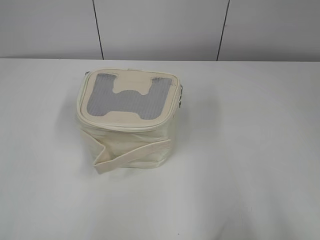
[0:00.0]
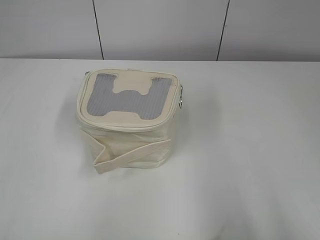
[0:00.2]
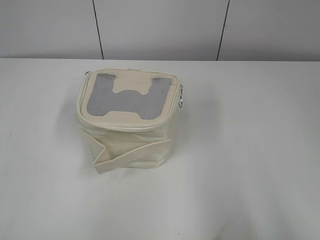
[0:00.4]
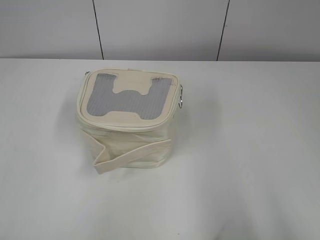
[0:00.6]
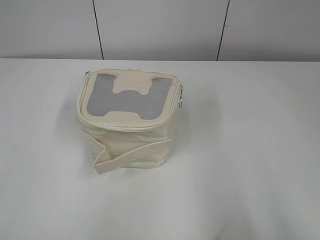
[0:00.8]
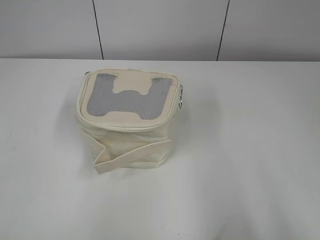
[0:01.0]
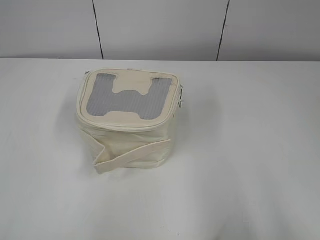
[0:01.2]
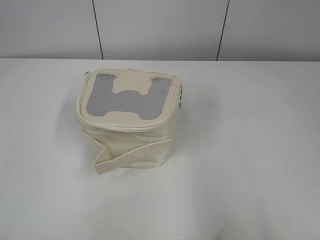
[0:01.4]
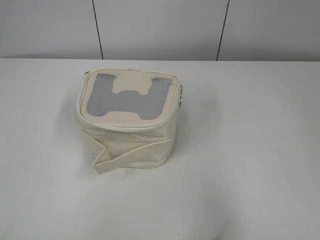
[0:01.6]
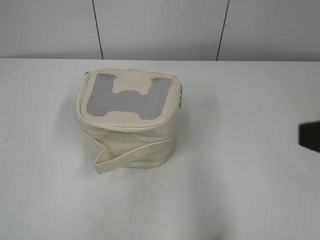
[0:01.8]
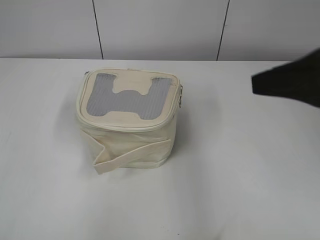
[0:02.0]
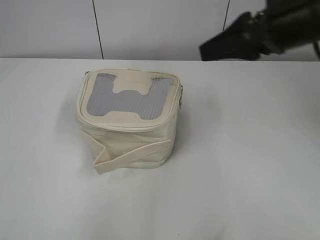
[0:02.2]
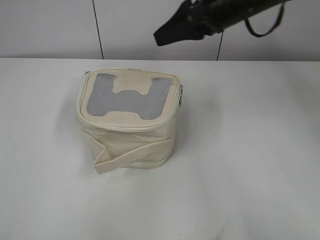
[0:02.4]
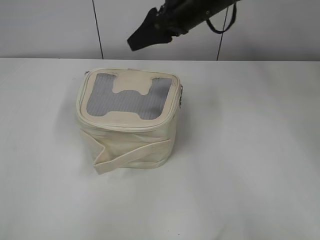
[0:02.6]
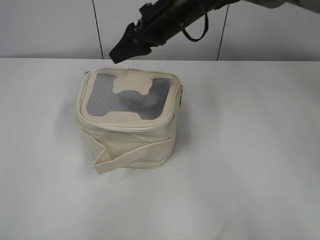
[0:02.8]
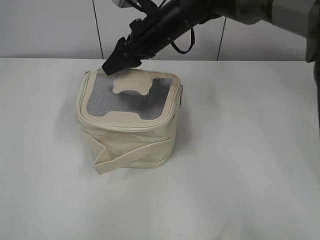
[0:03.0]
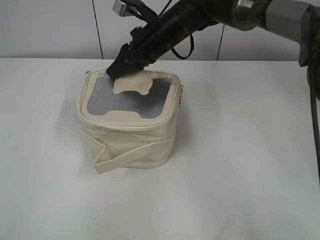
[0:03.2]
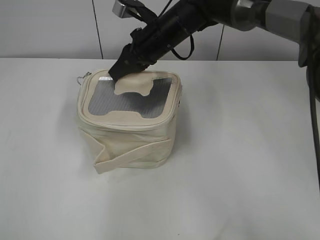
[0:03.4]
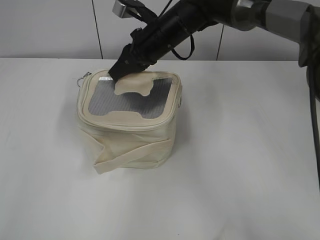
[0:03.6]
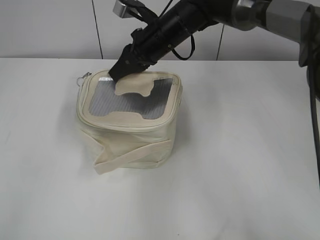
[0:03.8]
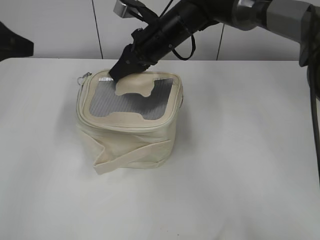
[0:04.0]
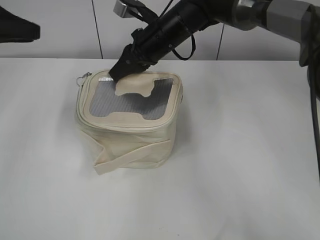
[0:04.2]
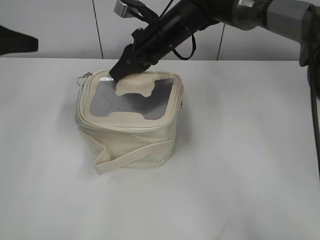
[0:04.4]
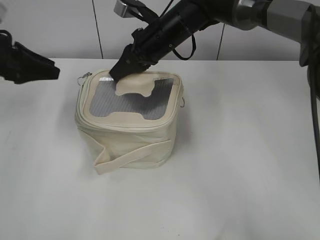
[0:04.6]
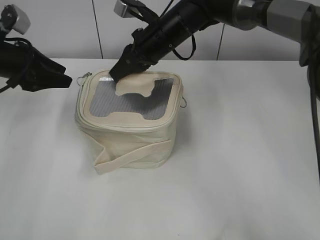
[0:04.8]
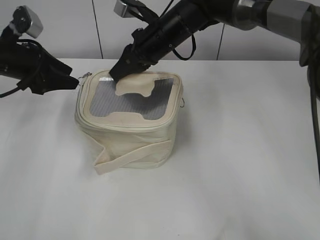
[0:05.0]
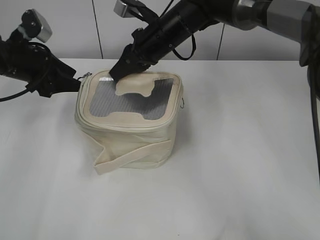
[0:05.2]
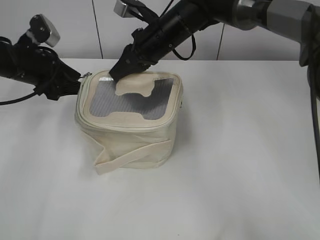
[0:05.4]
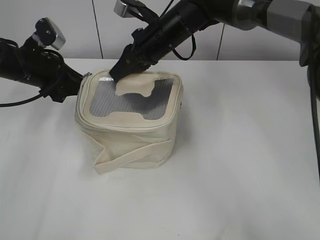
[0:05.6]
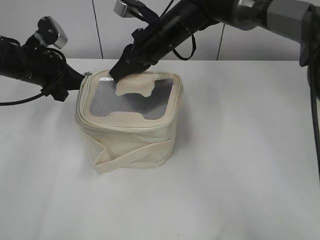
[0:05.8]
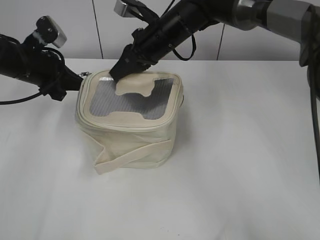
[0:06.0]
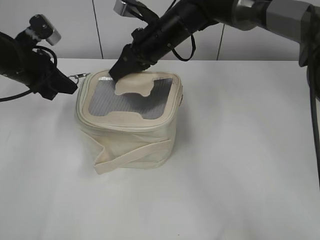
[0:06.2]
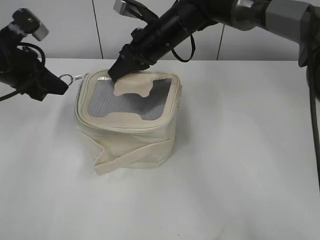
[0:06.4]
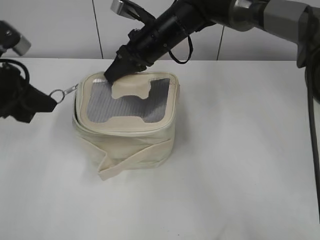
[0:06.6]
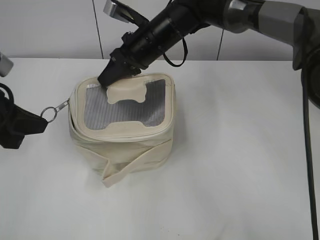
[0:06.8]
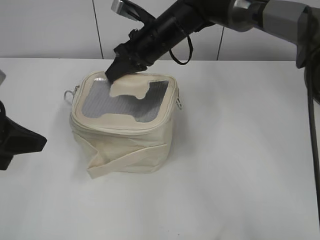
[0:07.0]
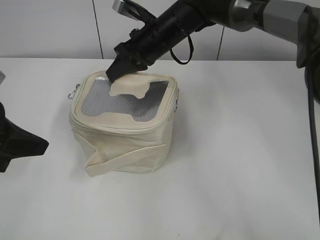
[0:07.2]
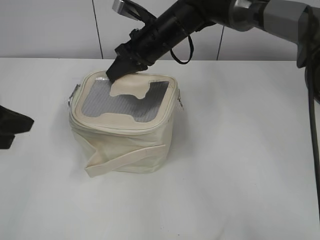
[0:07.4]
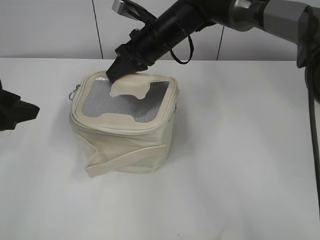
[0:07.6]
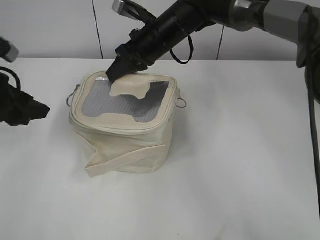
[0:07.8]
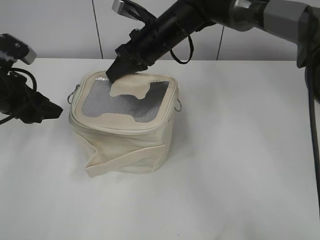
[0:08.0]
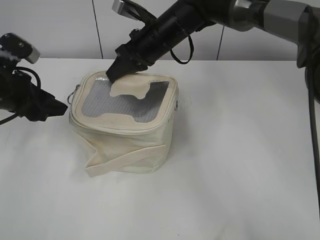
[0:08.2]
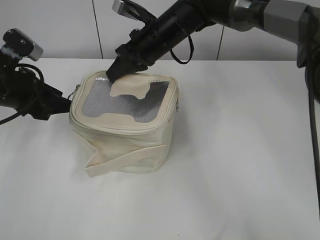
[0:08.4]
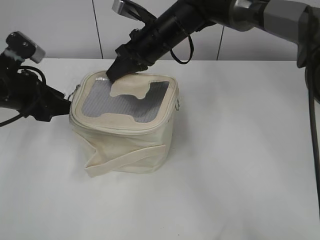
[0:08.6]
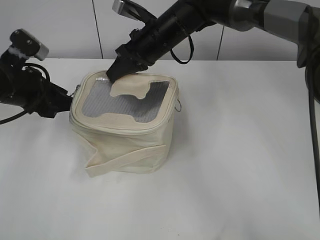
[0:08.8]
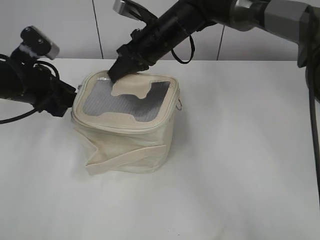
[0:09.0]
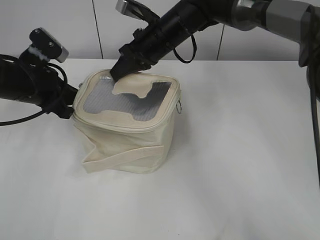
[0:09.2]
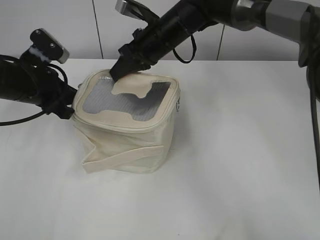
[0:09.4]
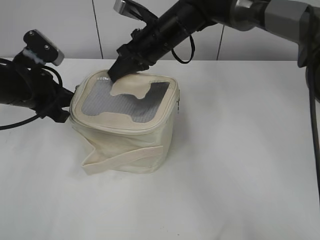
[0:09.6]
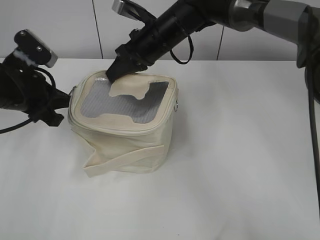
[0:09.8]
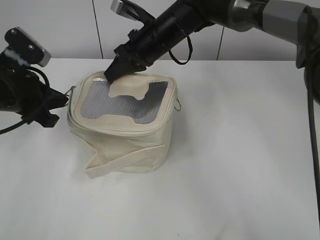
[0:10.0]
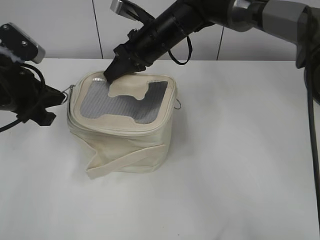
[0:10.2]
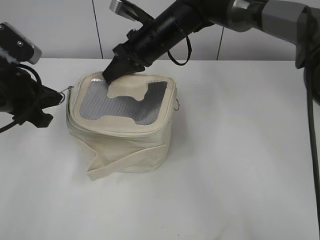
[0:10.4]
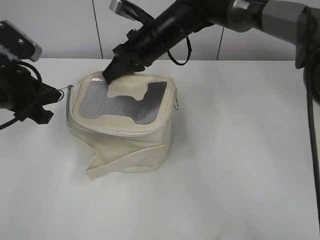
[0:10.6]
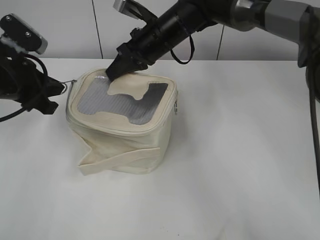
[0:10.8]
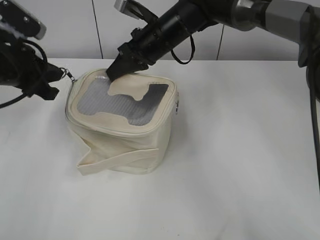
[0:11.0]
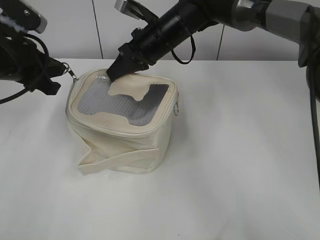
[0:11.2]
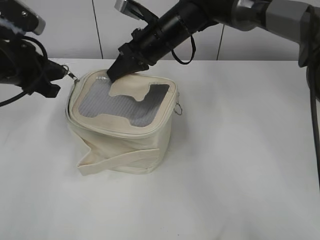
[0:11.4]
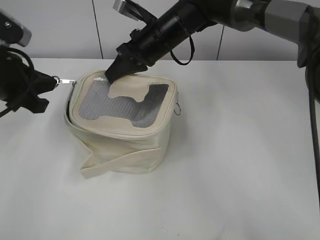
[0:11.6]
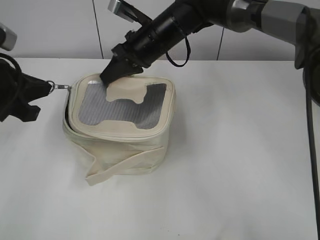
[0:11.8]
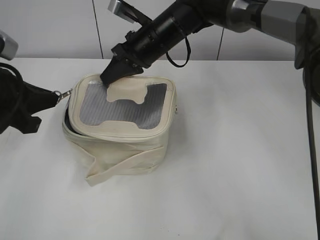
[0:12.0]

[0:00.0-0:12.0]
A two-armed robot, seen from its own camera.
0:01.6 to 0:03.0: The right gripper shifts approximately 50 cm forward and to the left.
0:03.0 to 0:04.4: The left gripper moves forward, some 35 cm, while the right gripper closes up.
0:04.4 to 0:06.0: The left gripper shifts about 10 cm to the right and downward, and closes its fingers.
0:06.0 to 0:07.6: The left gripper shifts approximately 15 cm backward, and opens up.
0:07.6 to 0:09.0: The left gripper heads forward, covering roughly 10 cm.
0:09.0 to 0:10.4: The left gripper heads backward, covering approximately 5 cm, and closes.
0:10.4 to 0:12.0: The grippers make only small movements.

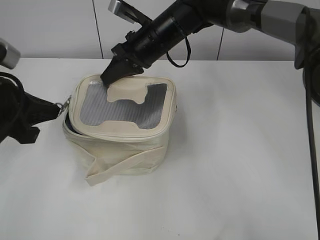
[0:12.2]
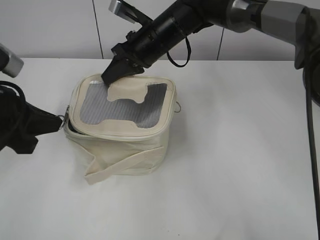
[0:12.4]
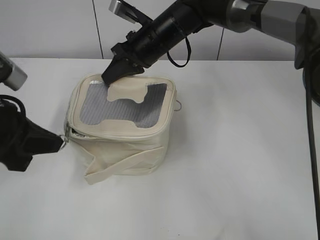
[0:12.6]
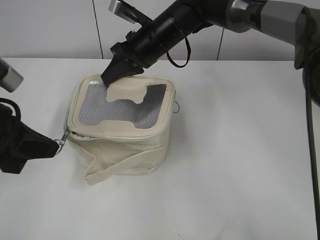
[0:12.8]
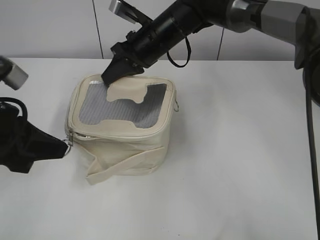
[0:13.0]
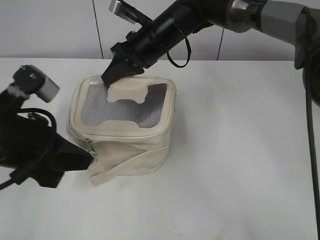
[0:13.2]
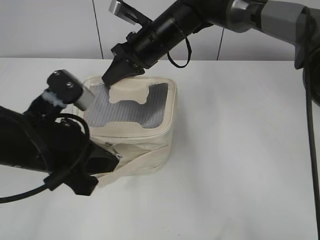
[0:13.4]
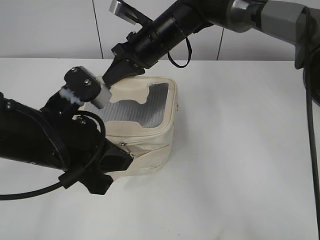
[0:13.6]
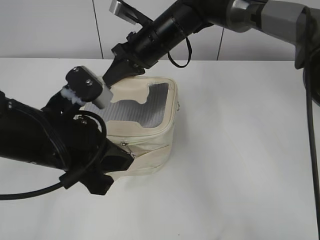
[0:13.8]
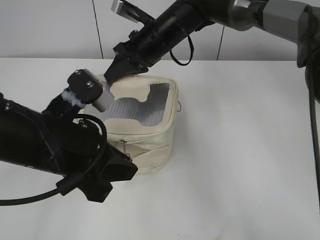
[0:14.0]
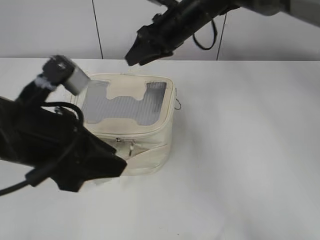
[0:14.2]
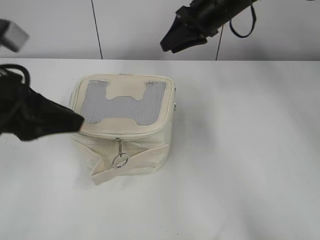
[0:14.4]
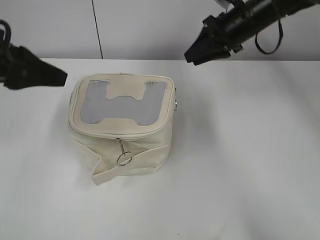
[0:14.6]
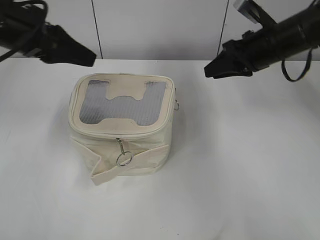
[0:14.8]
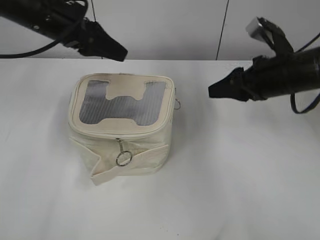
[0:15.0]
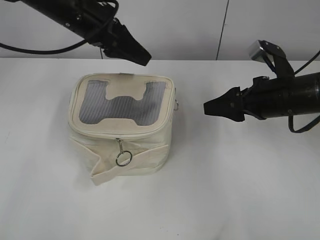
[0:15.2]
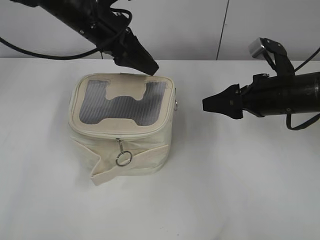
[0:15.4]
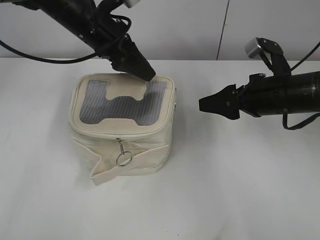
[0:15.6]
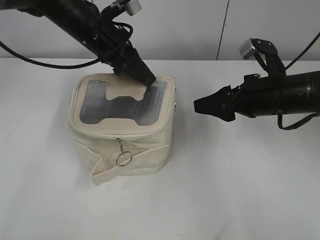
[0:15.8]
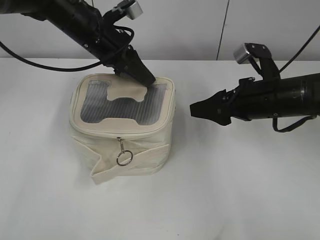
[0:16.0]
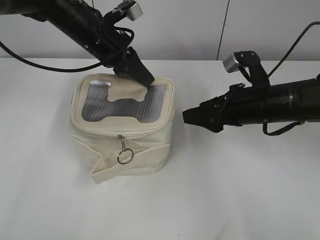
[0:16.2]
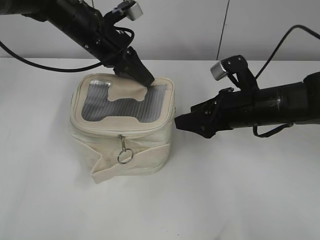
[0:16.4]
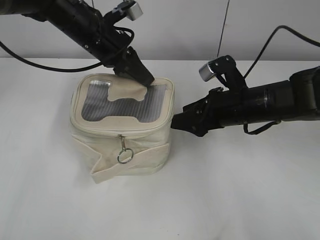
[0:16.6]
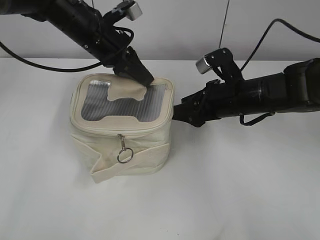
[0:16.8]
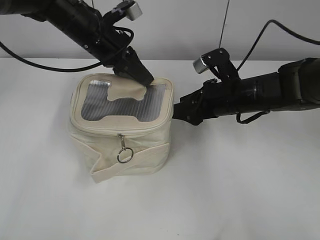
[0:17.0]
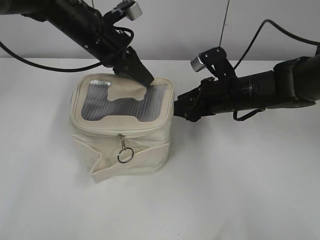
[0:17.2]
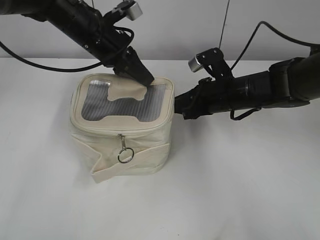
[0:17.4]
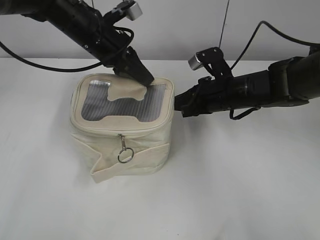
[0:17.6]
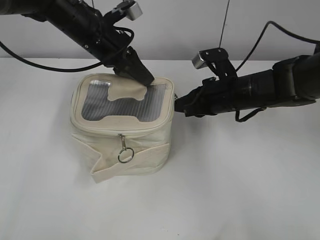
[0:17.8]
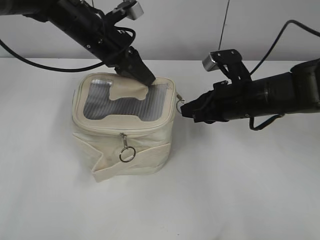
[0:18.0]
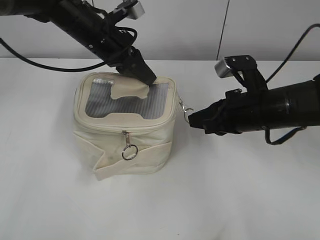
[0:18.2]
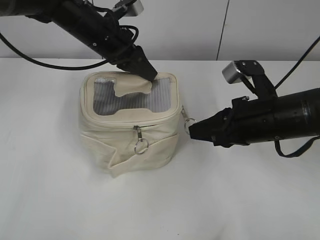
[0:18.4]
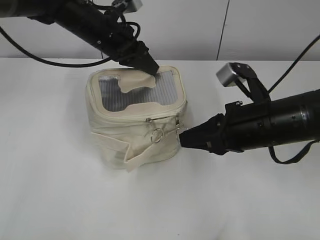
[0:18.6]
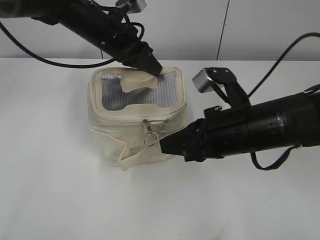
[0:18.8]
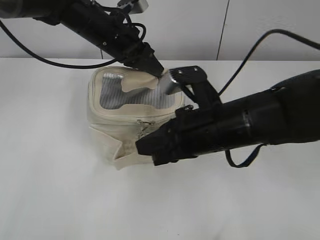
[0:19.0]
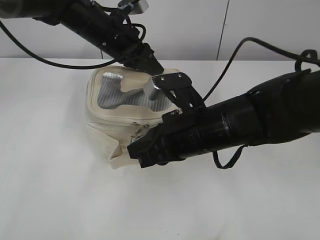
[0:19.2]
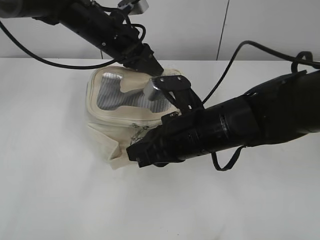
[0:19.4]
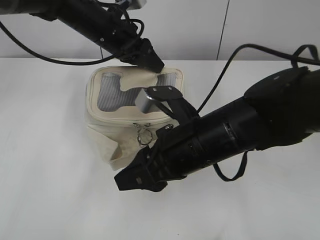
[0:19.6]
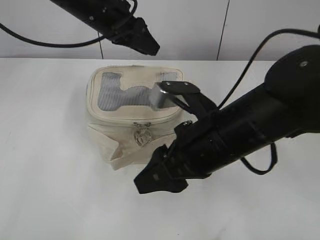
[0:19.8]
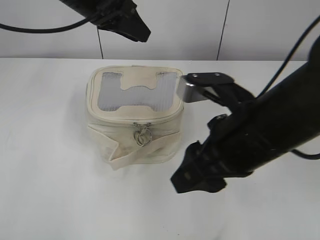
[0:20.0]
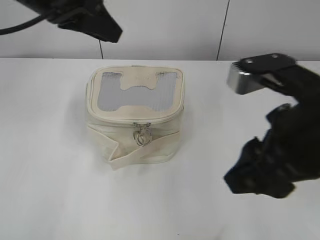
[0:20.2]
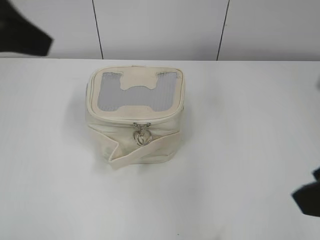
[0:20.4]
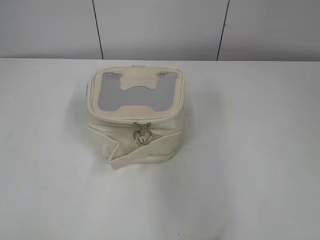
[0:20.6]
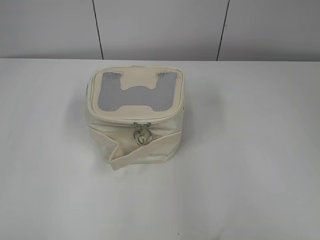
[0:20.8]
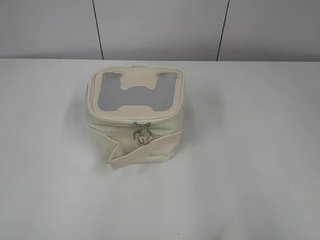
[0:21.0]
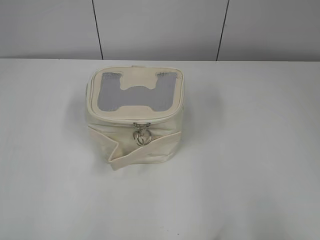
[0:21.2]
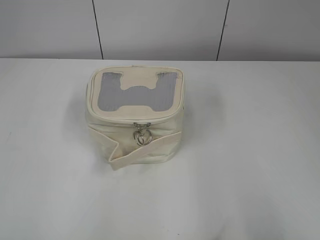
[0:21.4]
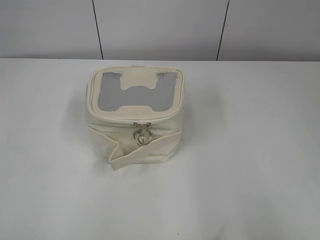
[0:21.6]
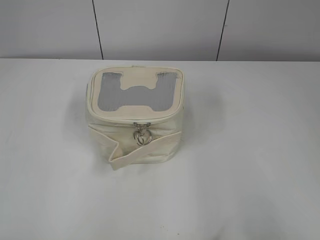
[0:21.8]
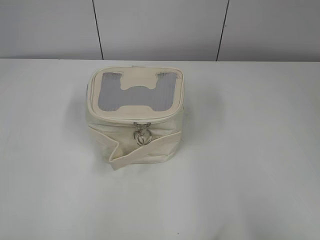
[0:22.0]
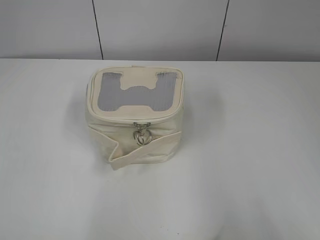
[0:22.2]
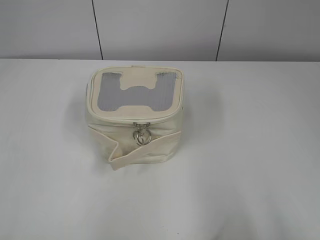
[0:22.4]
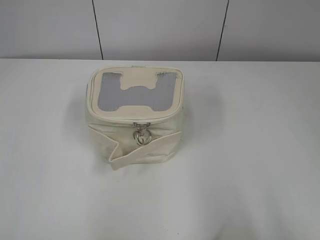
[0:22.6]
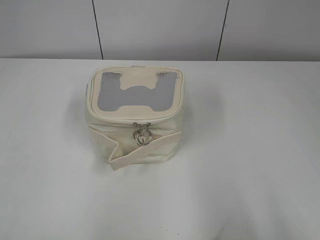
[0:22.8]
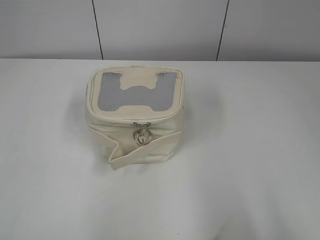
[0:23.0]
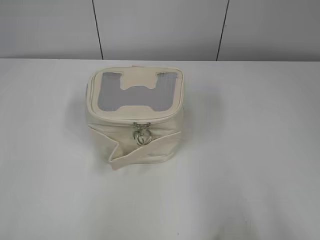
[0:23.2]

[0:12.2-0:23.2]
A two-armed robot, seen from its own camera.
Step, 0:14.4 to 0:19.4: Zip up the bag with your right hand.
0:12.2 to 0:13.8: The left gripper heads to the right, covering some 10 cm.
0:13.8 to 0:15.4: The left gripper heads forward, covering about 20 cm, and opens. Meanwhile the right gripper moves to the right and backward, approximately 25 cm, and opens its fingers.
0:15.4 to 0:17.0: The left gripper closes. Meanwhile the right gripper moves to the left, roughly 5 cm.
0:17.0 to 0:18.4: The right gripper moves backward, about 10 cm, and closes.
0:18.4 to 0:20.0: The right gripper moves to the left, backward and upward, some 10 cm, and opens. Meanwhile the left gripper shifts some 10 cm upward, and opens up.
0:20.0 to 0:21.6: The left gripper heads backward and to the left, covering about 40 cm, while the right gripper goes roughly 30 cm to the right and backward.
